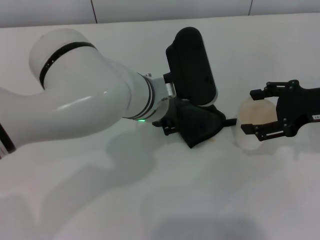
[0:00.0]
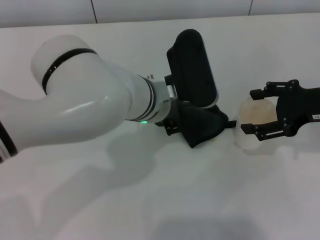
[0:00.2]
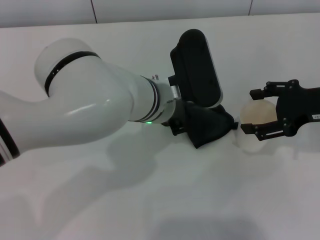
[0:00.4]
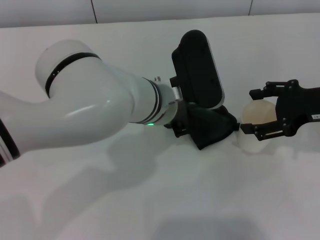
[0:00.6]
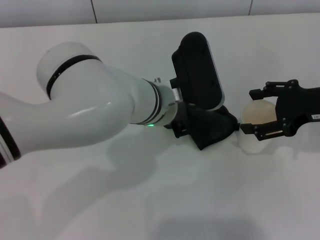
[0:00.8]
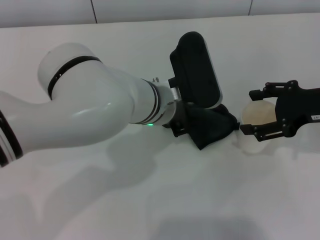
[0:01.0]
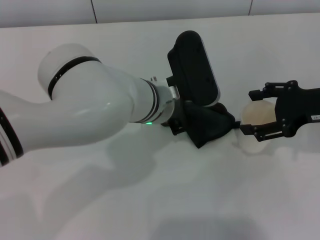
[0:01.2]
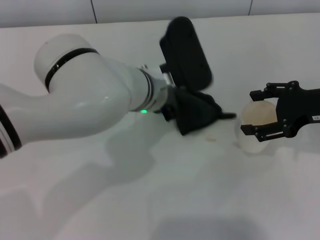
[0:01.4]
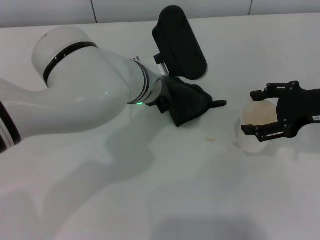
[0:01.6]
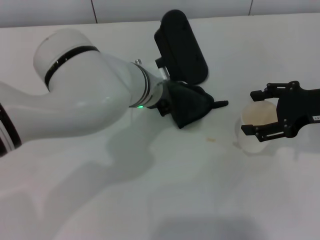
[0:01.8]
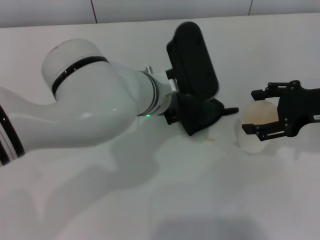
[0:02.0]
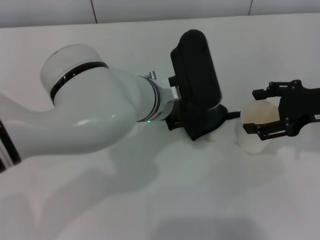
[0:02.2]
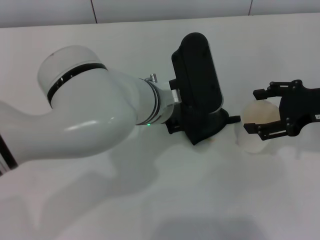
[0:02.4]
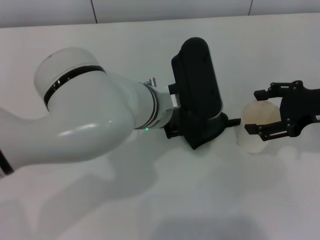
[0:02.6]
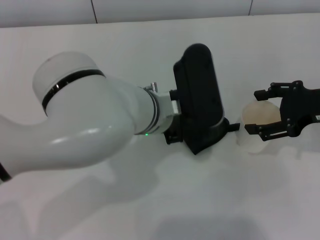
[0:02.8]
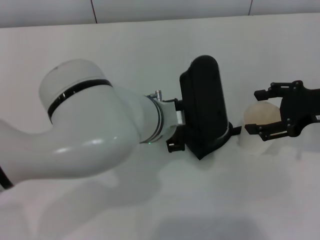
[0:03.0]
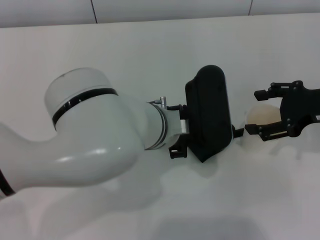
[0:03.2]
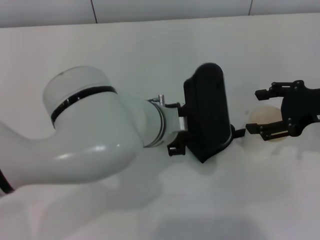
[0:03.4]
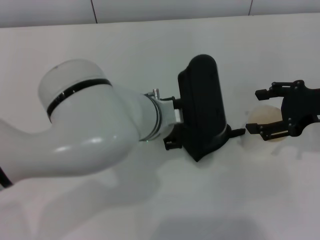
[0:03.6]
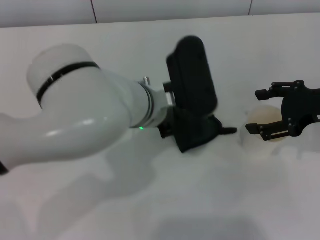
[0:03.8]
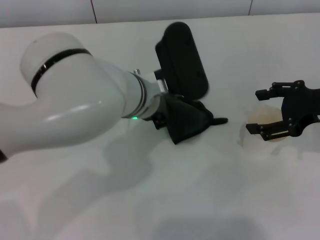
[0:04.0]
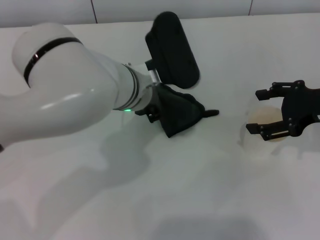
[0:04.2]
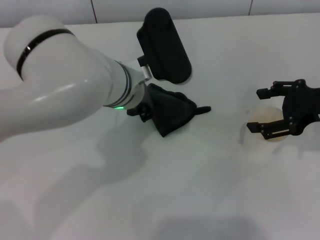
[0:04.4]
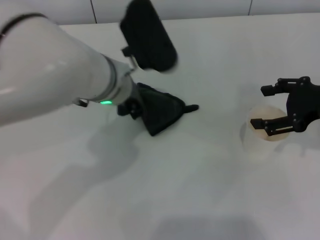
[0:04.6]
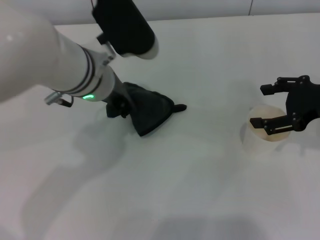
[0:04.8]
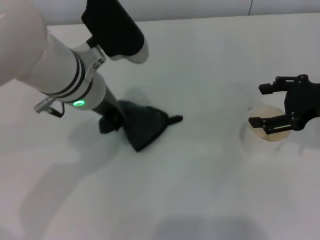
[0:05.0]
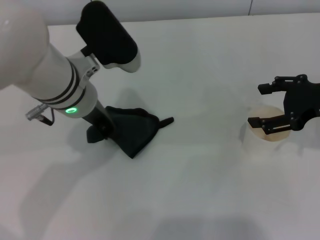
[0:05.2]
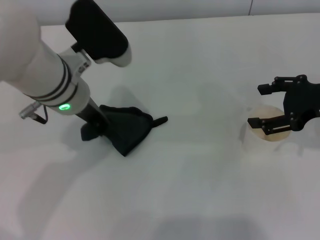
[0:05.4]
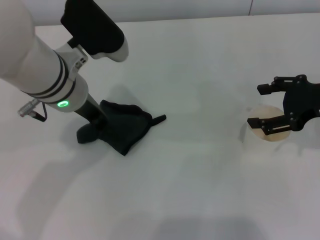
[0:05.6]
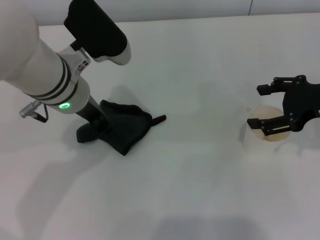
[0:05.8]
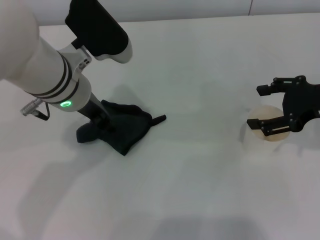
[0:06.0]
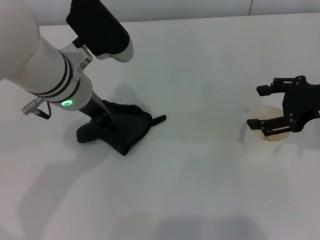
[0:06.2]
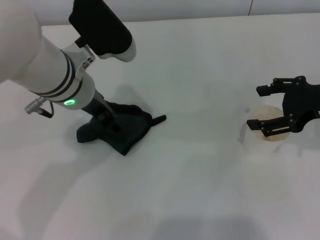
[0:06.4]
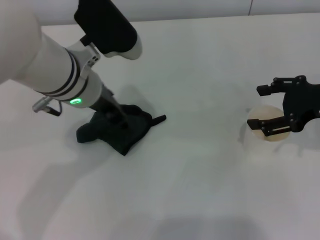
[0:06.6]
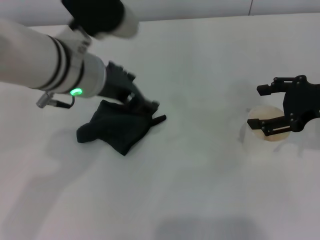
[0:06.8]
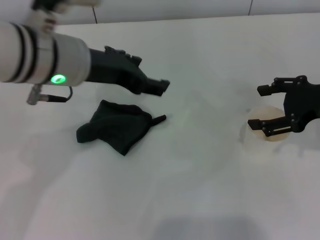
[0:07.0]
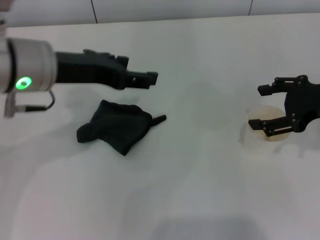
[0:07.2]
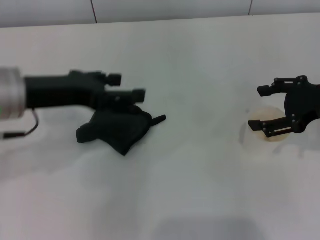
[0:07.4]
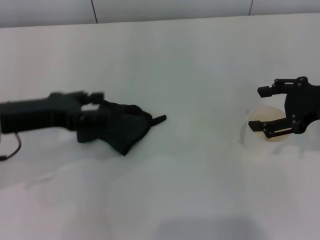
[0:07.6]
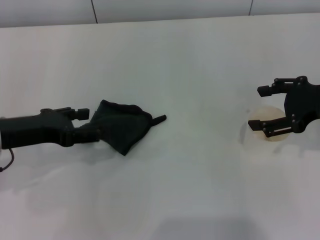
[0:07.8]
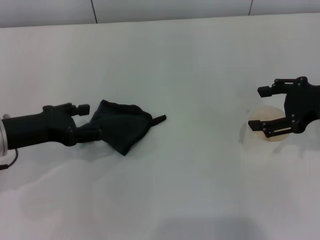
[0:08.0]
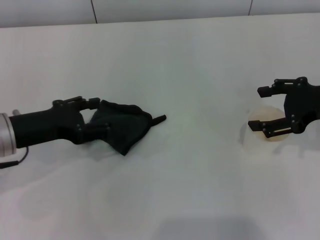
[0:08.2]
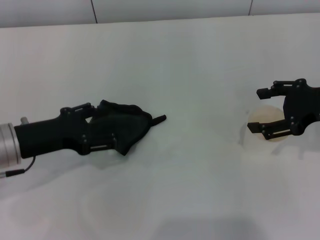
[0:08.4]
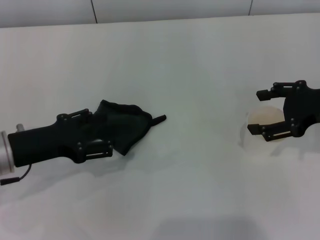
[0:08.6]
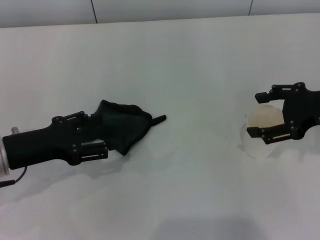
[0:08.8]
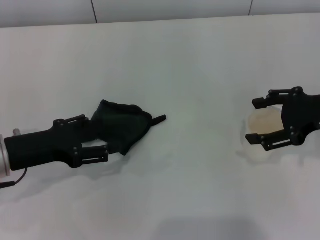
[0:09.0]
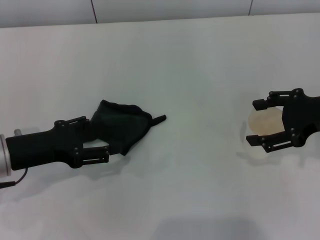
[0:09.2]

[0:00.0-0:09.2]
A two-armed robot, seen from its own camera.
Step, 0:00.0 to 0:05.0: Wipe the stains off the table with the left gripper.
Step, 0:05.4 to 0:07.4: Place the rag on the table with the left gripper.
0:00.0 to 0:01.6: The grippers move only a little.
0:01.6 to 0:03.0: The left gripper is displaced backward by approximately 5 cm.
0:03.0 to 0:04.6: The left gripper shifts roughly 5 cm to the left.
0:04.6 to 0:06.2: The left gripper heads to the left, covering approximately 5 cm, and opens up.
0:06.2 to 0:07.6: The left gripper heads to the left and backward, covering some 15 cm.
0:07.6 to 0:09.2: The left gripper is displaced downward by roughly 5 cm.

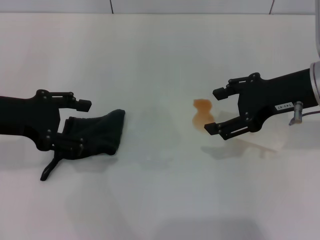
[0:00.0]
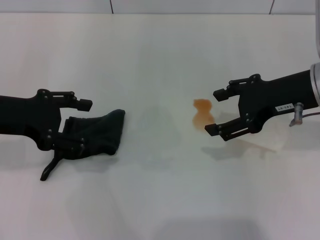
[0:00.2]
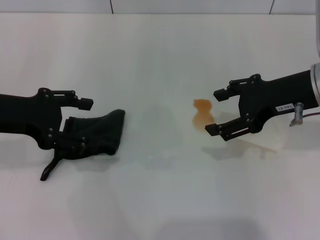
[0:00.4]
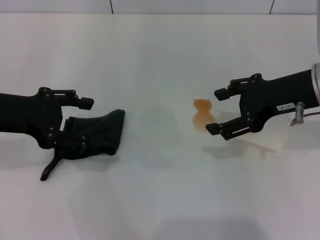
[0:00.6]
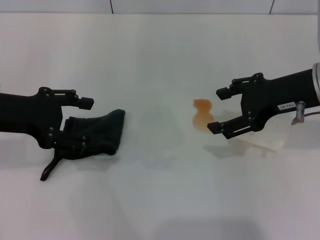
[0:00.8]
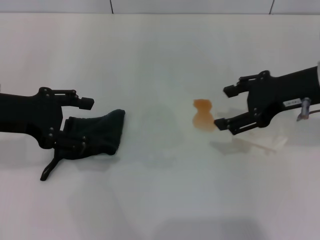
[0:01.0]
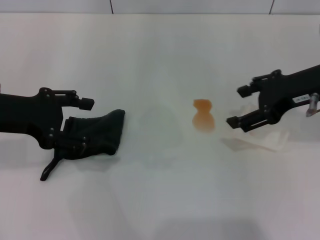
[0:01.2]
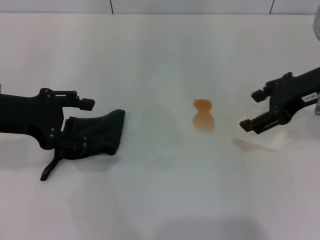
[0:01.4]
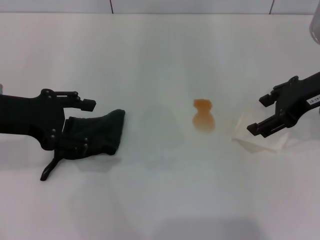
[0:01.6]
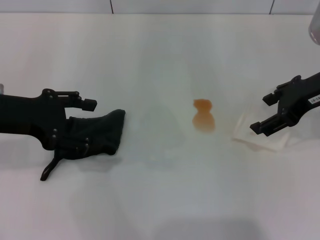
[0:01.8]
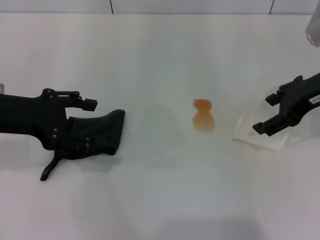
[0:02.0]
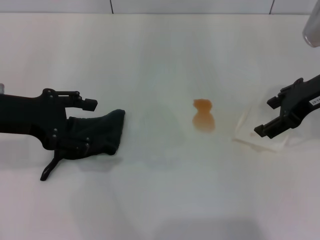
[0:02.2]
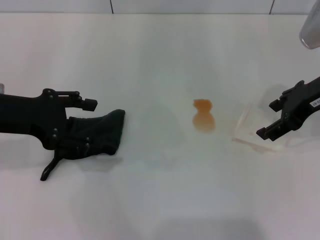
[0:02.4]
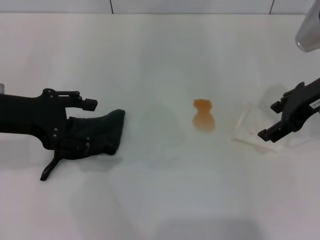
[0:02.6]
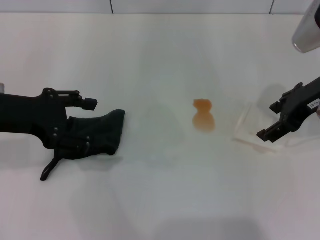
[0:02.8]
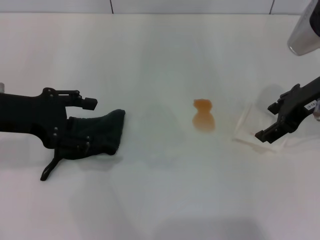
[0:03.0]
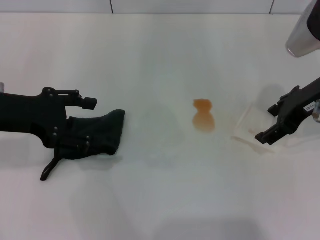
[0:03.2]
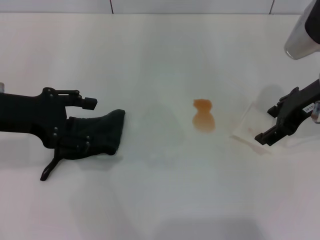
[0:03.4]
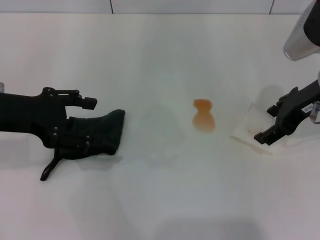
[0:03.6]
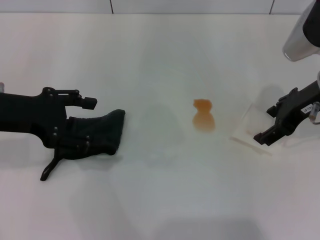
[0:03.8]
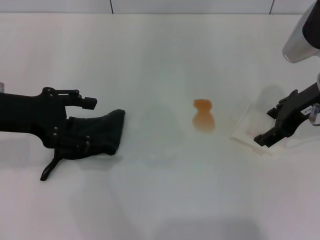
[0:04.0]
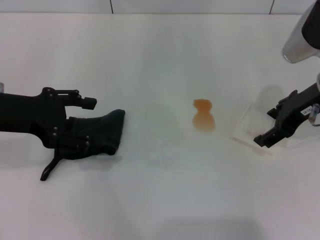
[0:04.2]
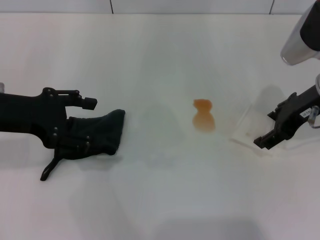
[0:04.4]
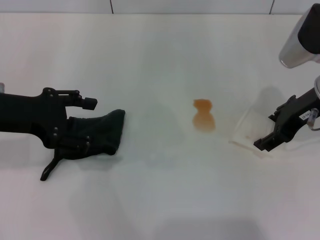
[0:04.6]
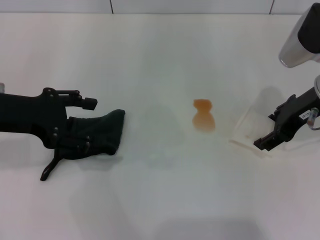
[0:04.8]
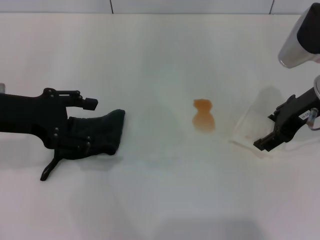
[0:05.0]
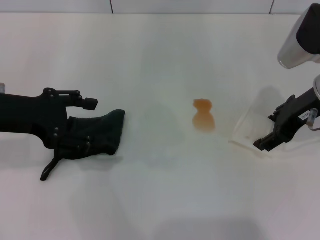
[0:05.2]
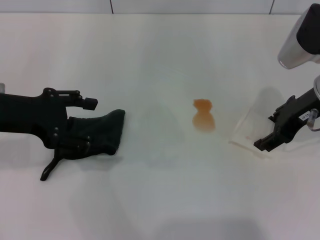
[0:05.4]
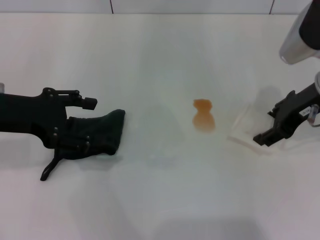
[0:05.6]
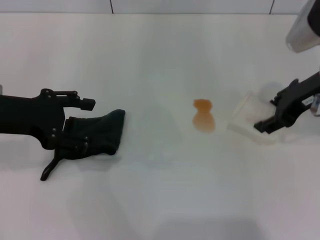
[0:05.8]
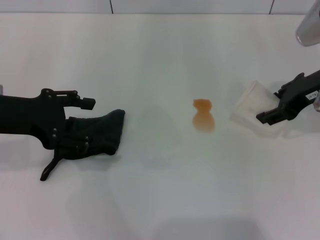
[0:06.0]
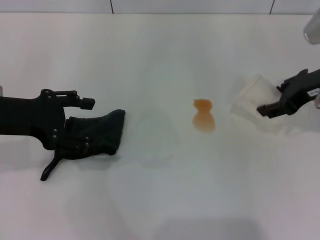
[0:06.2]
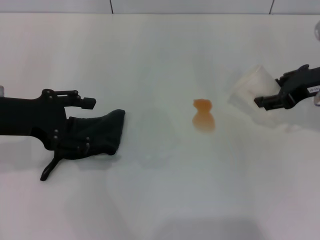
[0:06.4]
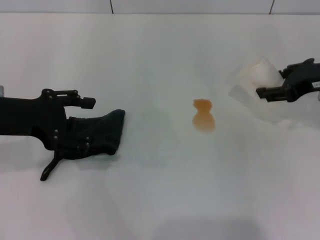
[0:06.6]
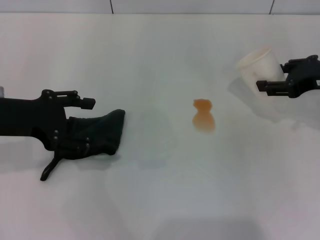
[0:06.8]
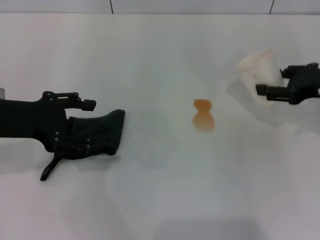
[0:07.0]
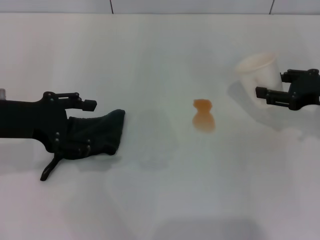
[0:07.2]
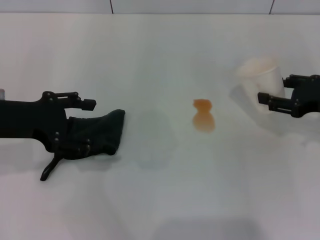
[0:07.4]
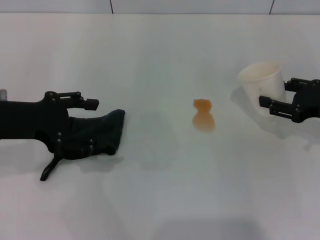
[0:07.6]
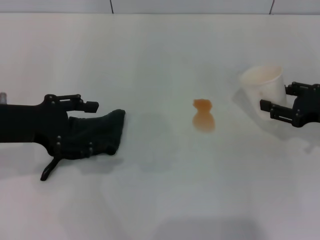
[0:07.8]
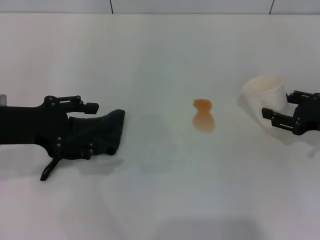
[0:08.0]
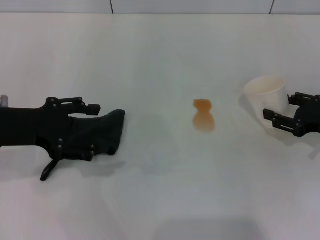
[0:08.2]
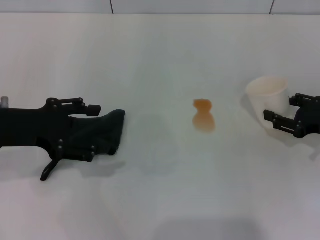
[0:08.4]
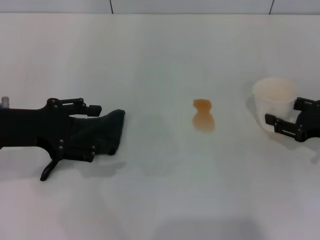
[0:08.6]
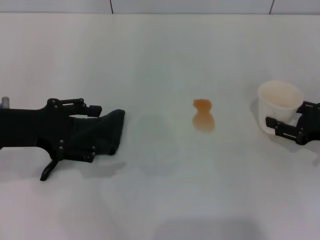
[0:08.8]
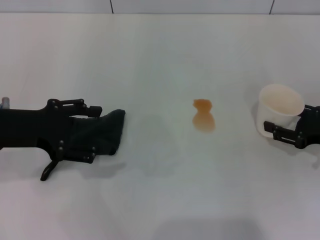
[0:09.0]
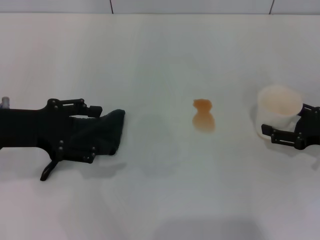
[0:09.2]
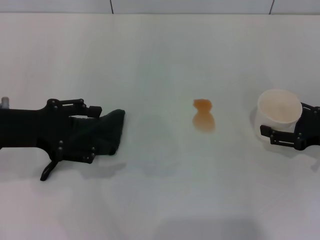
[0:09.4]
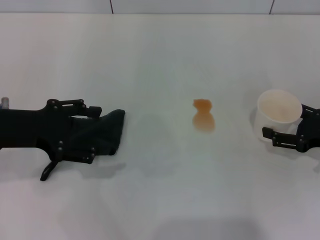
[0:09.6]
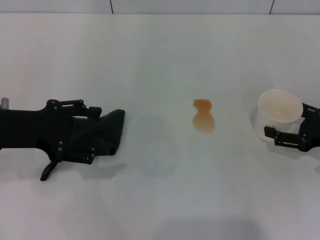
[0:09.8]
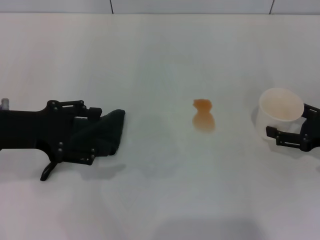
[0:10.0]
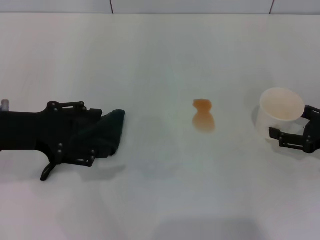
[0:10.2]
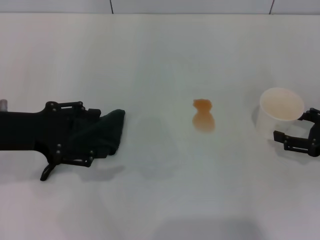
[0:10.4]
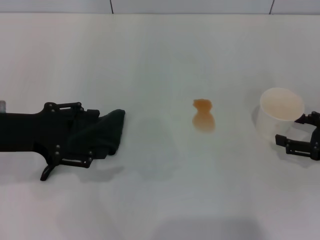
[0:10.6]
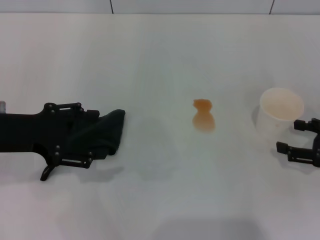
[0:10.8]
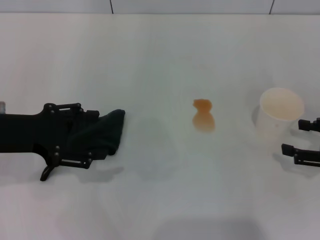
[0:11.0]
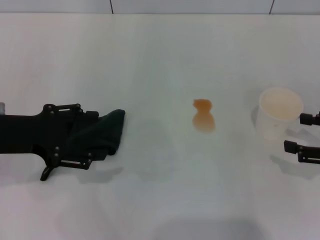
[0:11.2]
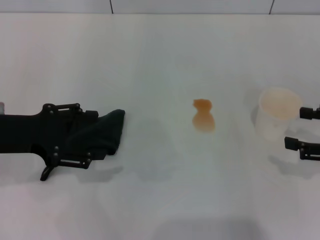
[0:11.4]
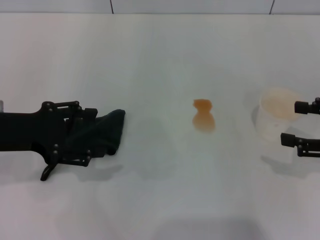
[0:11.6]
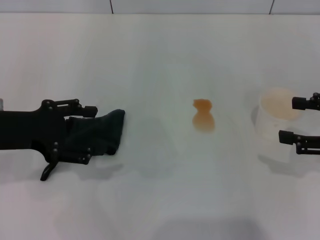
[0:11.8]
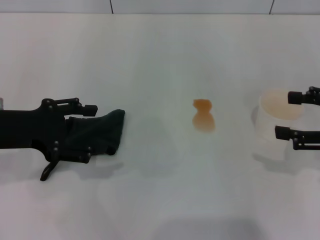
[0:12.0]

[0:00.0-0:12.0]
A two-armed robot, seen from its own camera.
Step, 0:00.0 to 0:05.2: Grasp the paper cup with the right gripper.
Step, 0:05.6 to 0:10.6: Stand the paper cup upright with the right gripper.
0:01.6 to 0:04.4: The grippers make only small movements.
0:04.4 to 0:06.0: The right gripper closes its fingers.
0:06.0 to 0:07.6: The right gripper moves downward and to the right, roughly 10 cm.
0:07.6 to 0:09.0: The right gripper shifts by some 5 cm.
0:09.0 to 0:10.4: The right gripper opens up.
0:10.4 to 0:12.0: The right gripper shifts roughly 10 cm upward.

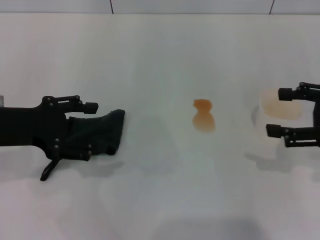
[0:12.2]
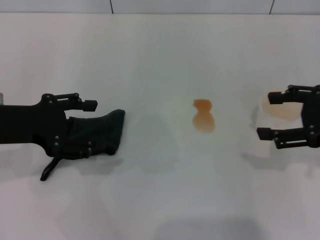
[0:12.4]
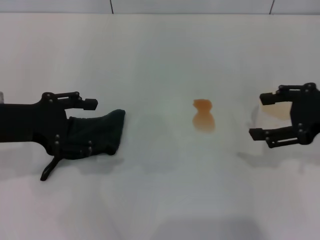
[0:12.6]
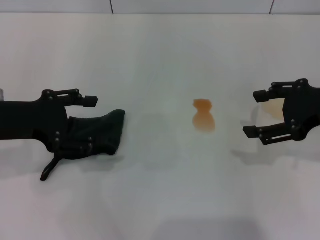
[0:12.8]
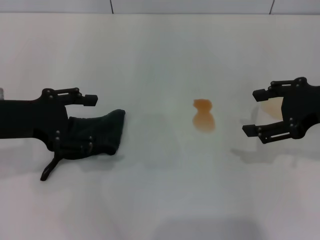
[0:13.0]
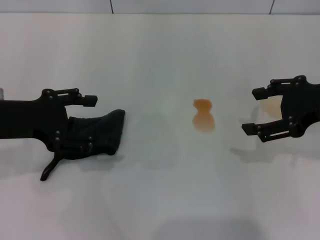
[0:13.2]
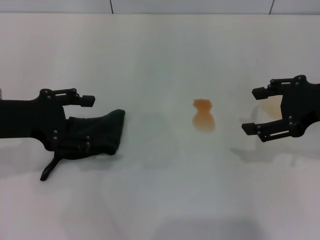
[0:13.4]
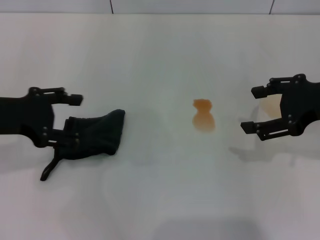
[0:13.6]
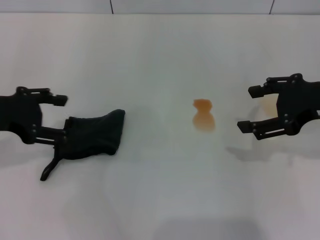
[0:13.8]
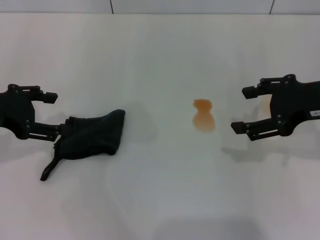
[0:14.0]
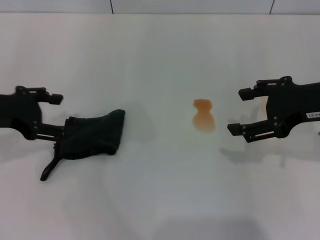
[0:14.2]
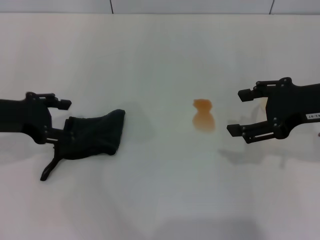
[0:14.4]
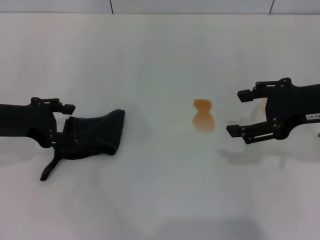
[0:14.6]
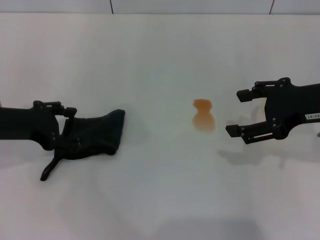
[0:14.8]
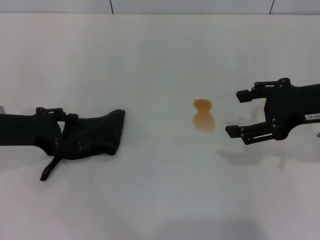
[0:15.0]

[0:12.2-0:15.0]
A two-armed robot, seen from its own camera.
0:12.2 to 0:13.6: The right gripper ends up roughly 5 cm from where it was.
0:13.6 to 0:15.0: The left gripper goes some 5 cm downward.
